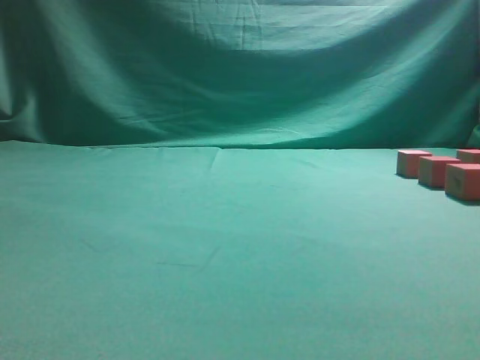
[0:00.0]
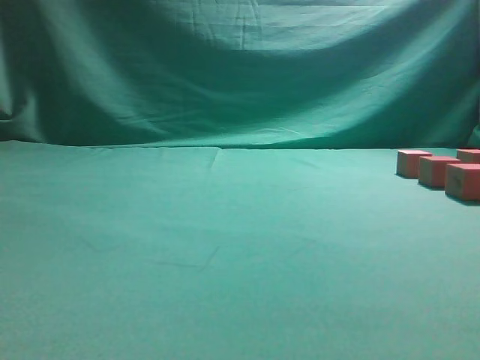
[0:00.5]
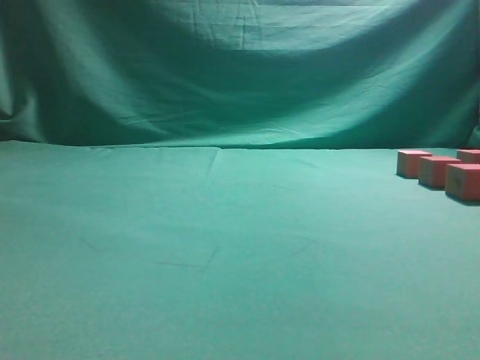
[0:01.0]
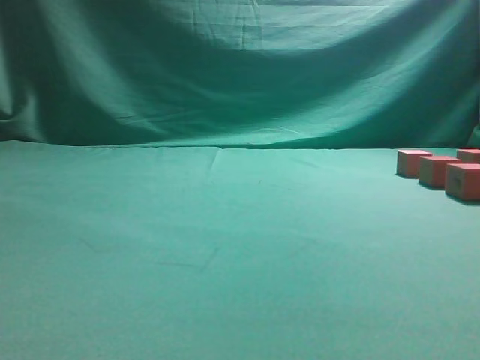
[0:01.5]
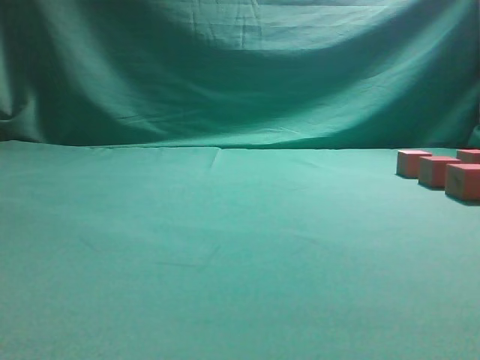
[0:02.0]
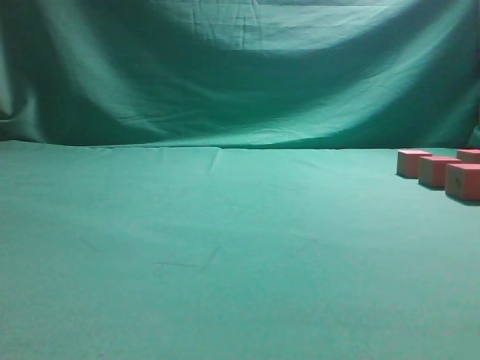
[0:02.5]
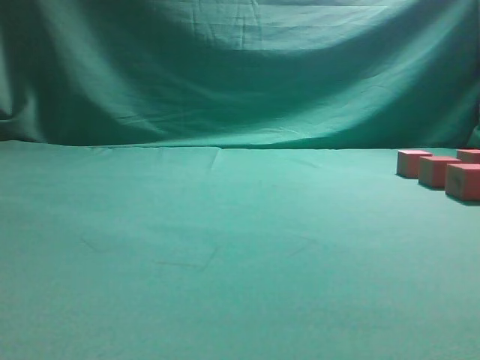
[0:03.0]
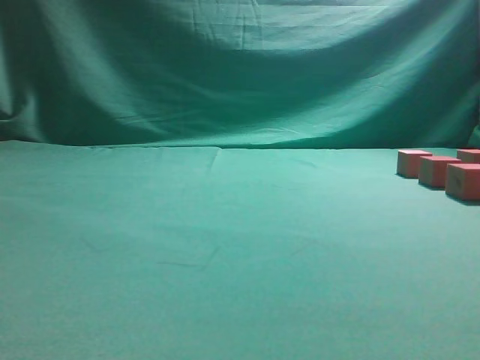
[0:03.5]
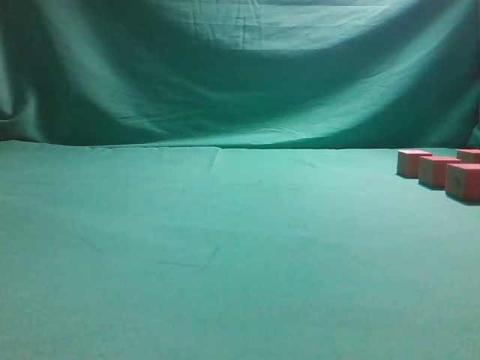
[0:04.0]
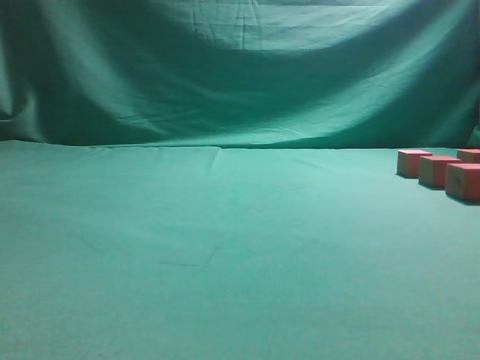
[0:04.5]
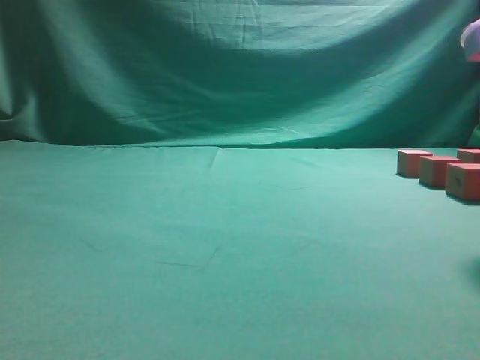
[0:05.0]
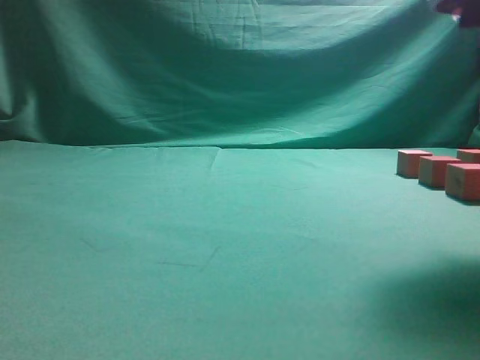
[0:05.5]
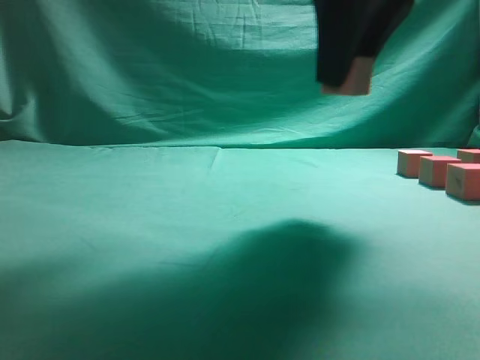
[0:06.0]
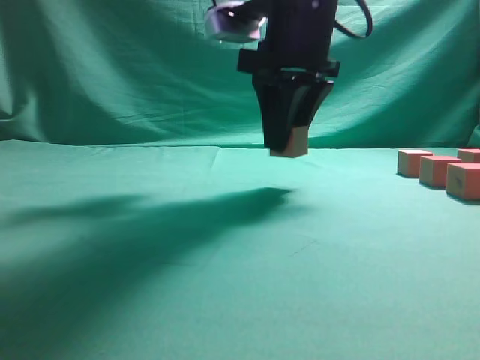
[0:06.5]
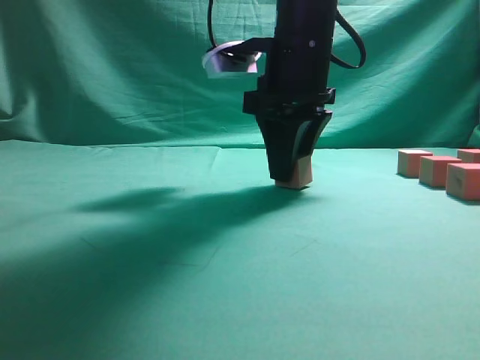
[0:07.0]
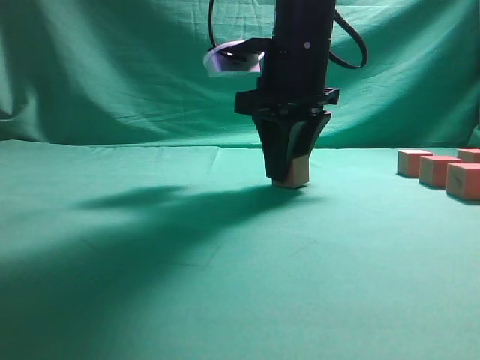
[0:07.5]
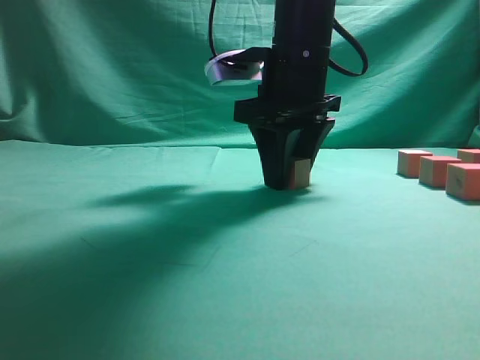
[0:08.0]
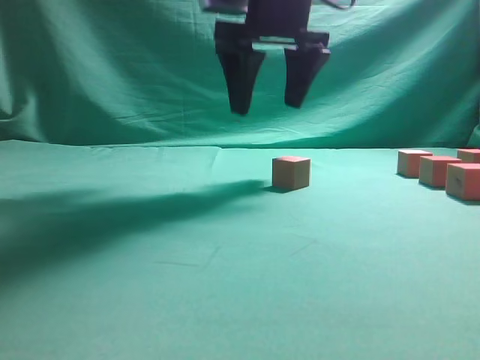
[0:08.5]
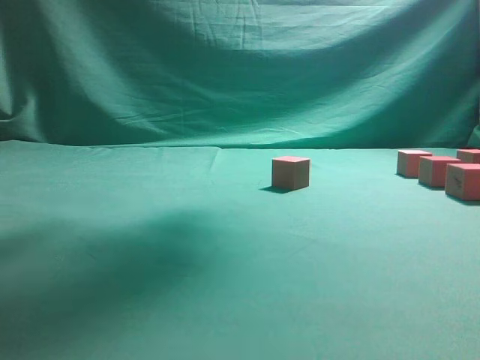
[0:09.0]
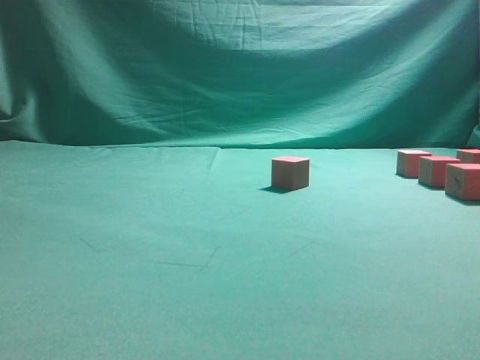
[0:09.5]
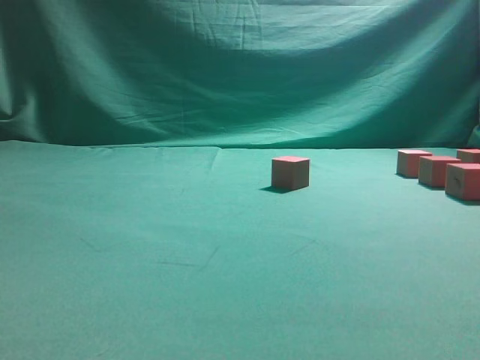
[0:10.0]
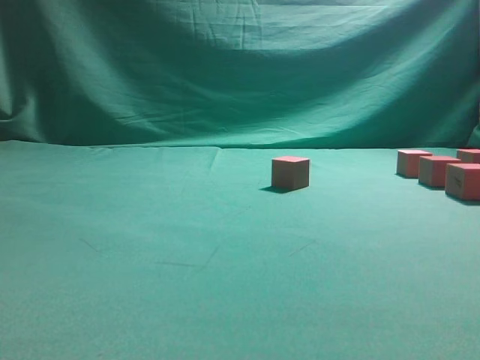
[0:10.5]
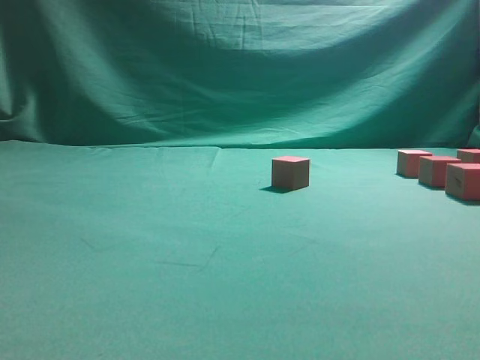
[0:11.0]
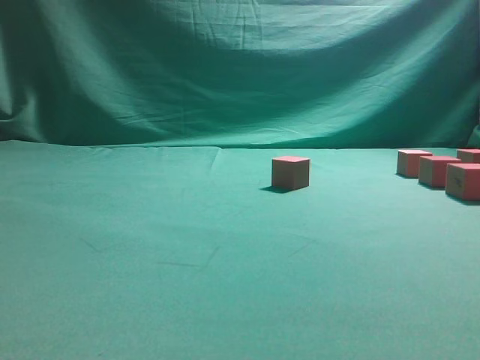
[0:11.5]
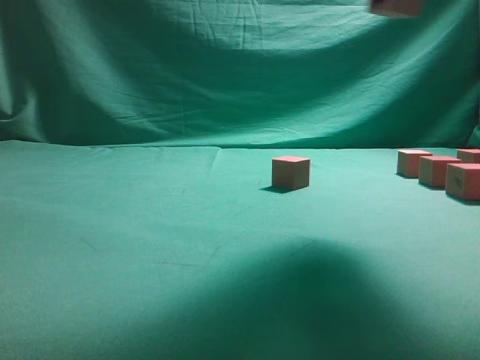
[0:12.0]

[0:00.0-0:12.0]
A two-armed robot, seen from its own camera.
Task of the whole recording: pick up the multiple cubes in two columns one by one and place them in another position on the table.
Step, 0:06.0 to 0:08.5: Place the block at the correct position to assemble the letter S.
Step, 0:09.0 to 0:11.5: Pick up the block on the table.
0:04.0 to 0:06.0: The right gripper shifts about 15 cm to the left and forward, and opens and closes again.
0:06.0 to 0:08.0: The right gripper travels downward and forward by roughly 15 cm.
0:08.0 to 0:10.0: The right gripper travels to the right and backward by approximately 30 cm.
0:10.0 to 0:12.0: The right gripper shifts roughly 20 cm to the left, upward and forward, and closes.

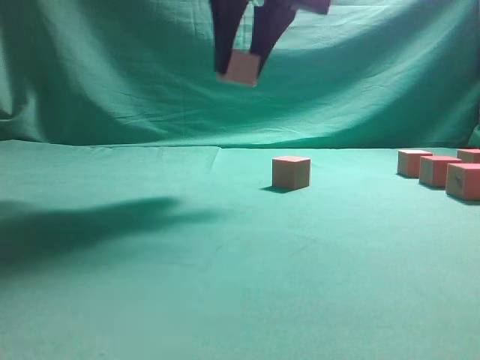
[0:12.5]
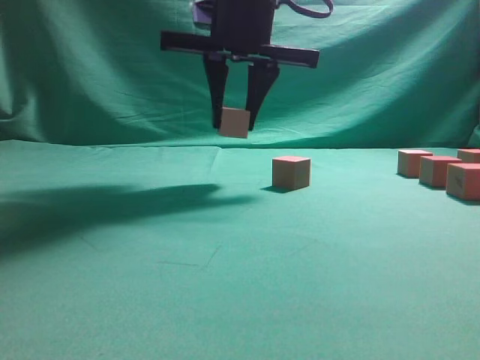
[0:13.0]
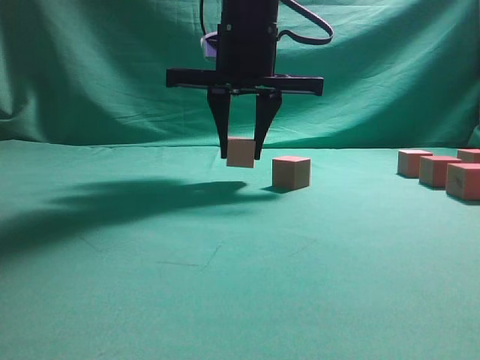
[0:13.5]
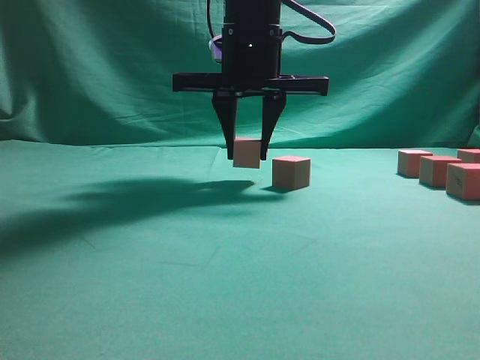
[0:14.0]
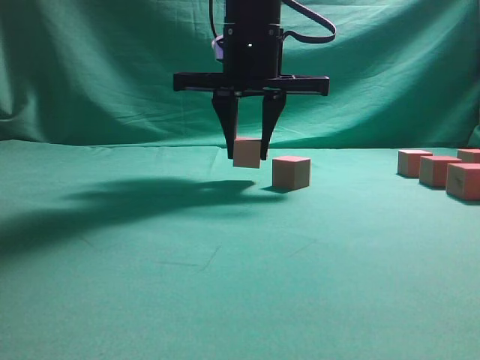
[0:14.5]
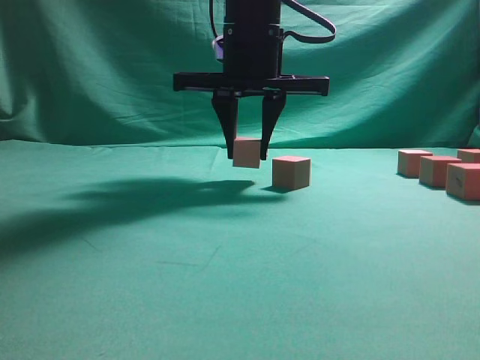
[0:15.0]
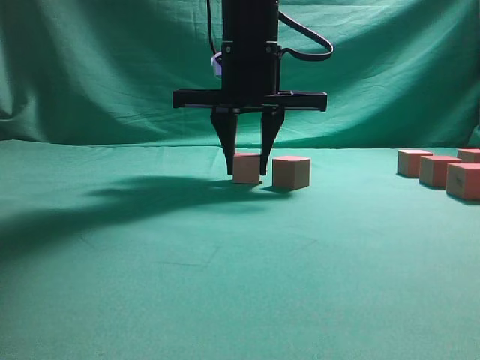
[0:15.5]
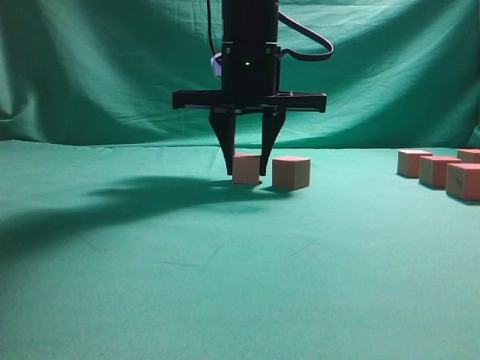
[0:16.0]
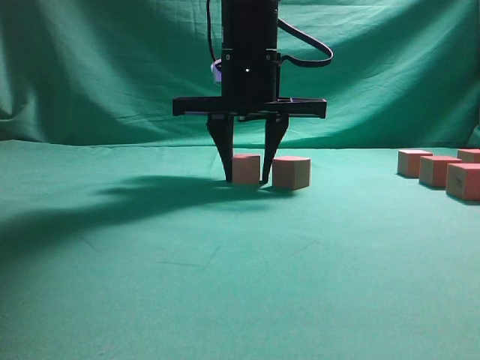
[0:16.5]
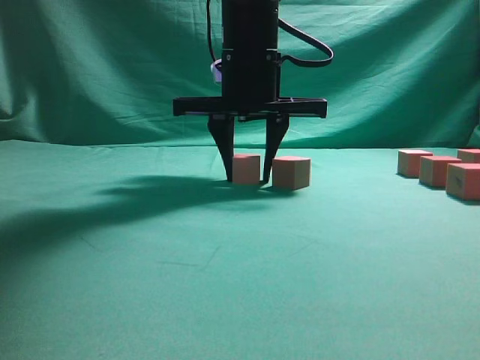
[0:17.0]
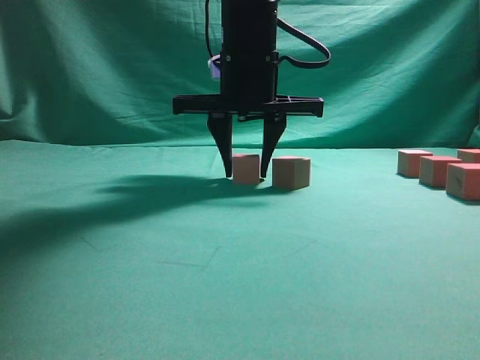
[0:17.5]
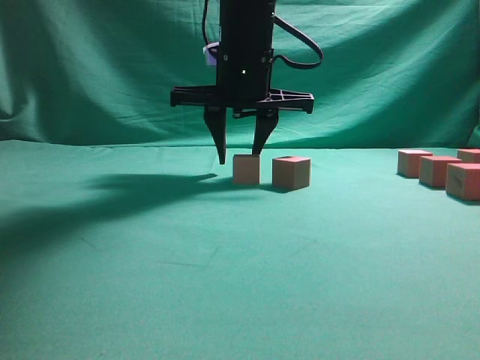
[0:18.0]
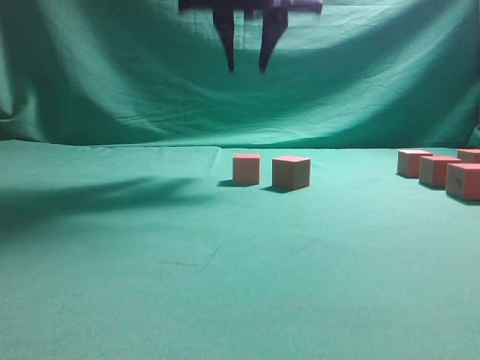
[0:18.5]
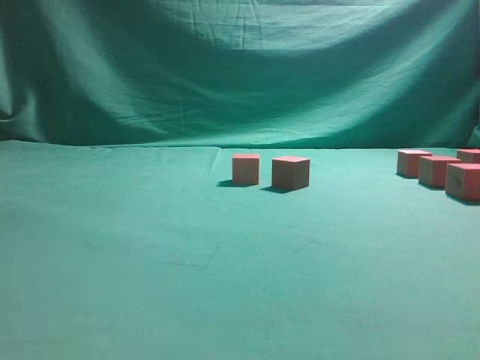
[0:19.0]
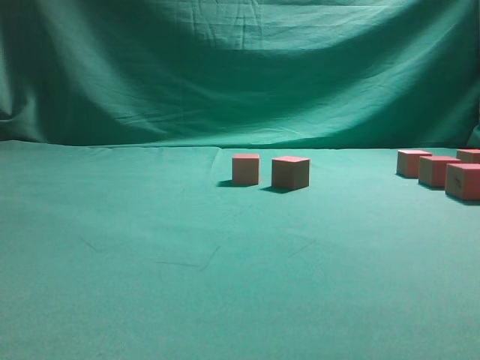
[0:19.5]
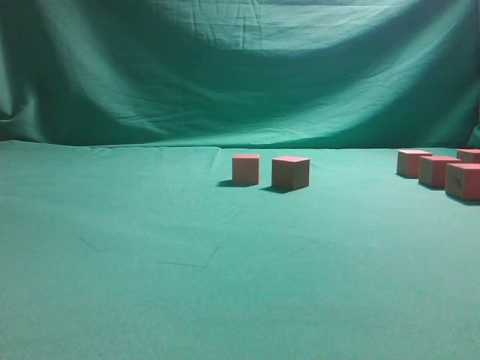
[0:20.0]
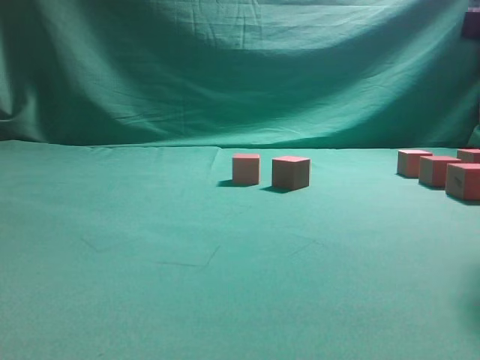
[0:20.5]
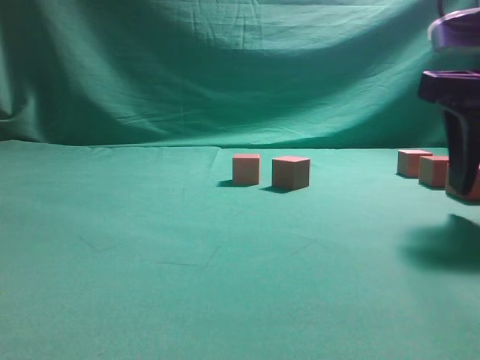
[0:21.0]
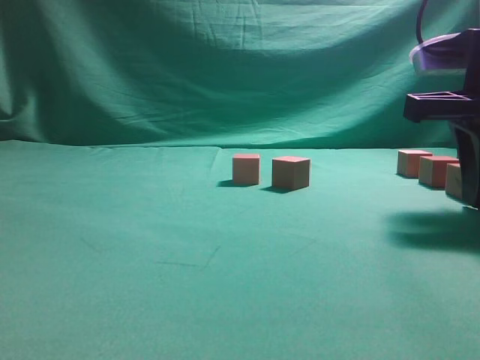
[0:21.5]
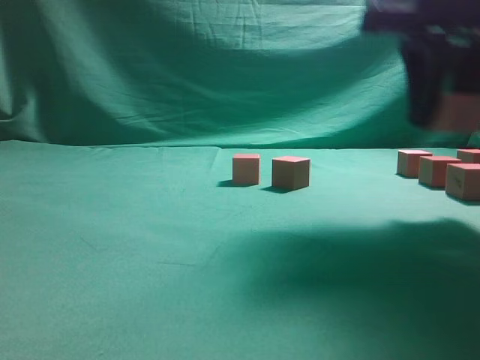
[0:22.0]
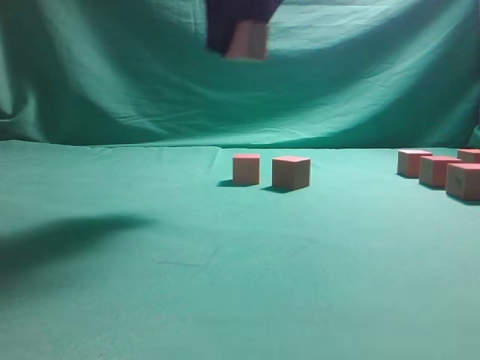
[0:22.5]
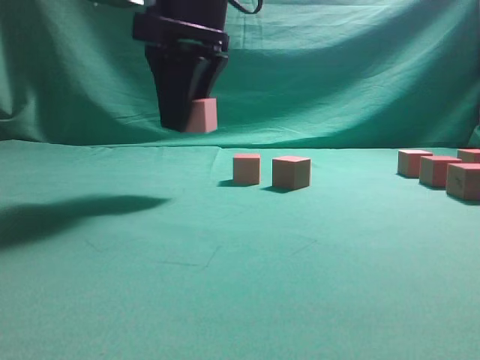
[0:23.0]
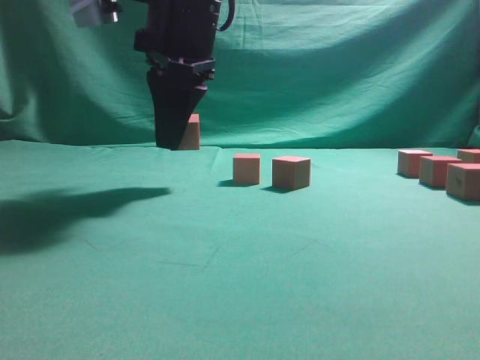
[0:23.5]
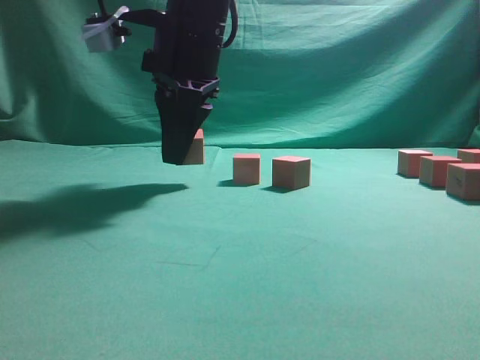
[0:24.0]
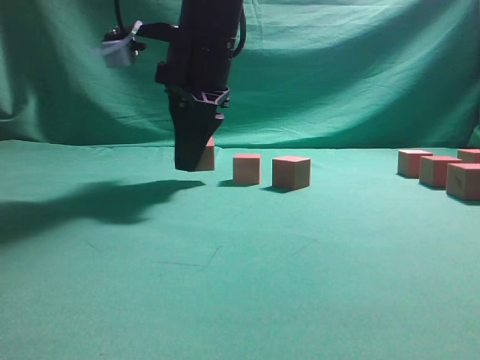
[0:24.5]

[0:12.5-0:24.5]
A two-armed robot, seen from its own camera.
Task of the whole recording: pick up the multiple cubes in two columns one by one and place them in another position on the table.
Step, 0:12.5 to 0:18.5: Place the block at the correct position to assemble the letter S.
Step, 0:19.0 to 0:21.5: Pick up the block on the table.
0:12.5 to 0:14.5: The right gripper travels downward by some 10 cm.
0:14.5 to 0:16.5: The grippers stay close to where they were, moving slightly.
0:16.5 to 0:18.5: The right gripper moves upward, about 10 cm.
0:18.5 to 0:20.5: The right gripper travels to the right, backward and downward by roughly 30 cm.
0:20.5 to 0:22.5: The right gripper heads to the left, forward and upward, covering approximately 25 cm, and closes.
0:22.5 to 0:24.5: The right gripper moves downward and forward, approximately 10 cm.

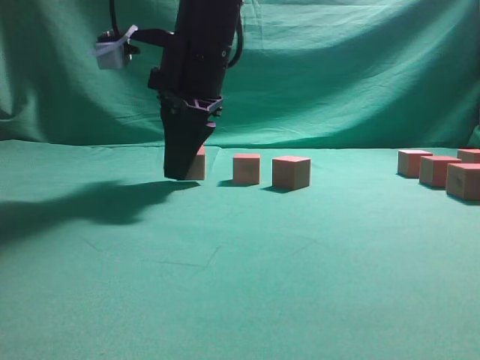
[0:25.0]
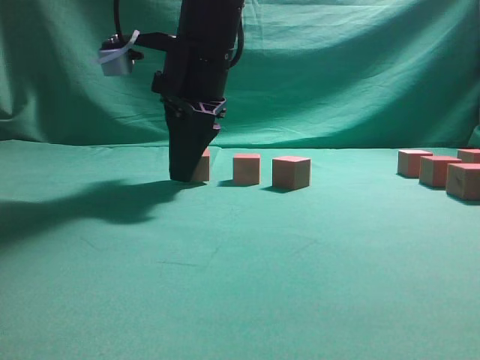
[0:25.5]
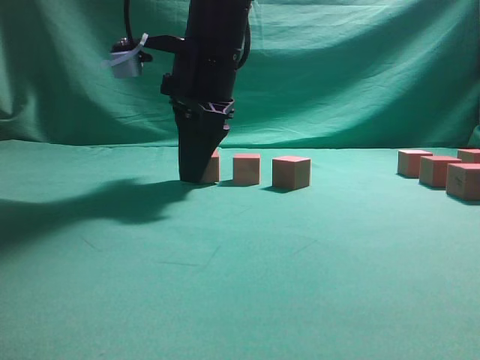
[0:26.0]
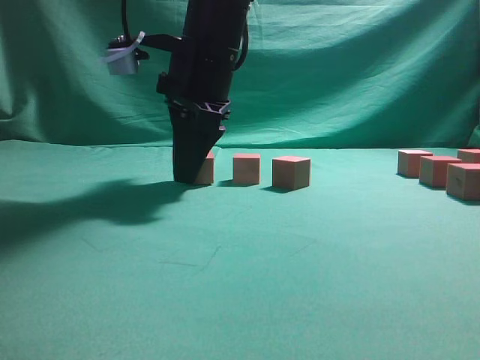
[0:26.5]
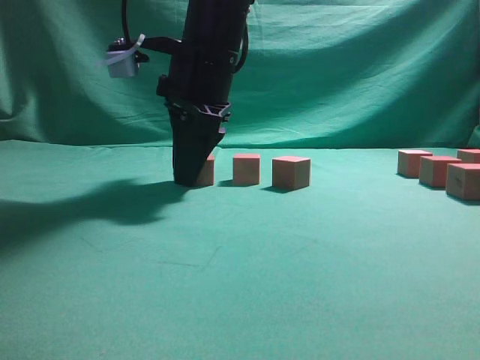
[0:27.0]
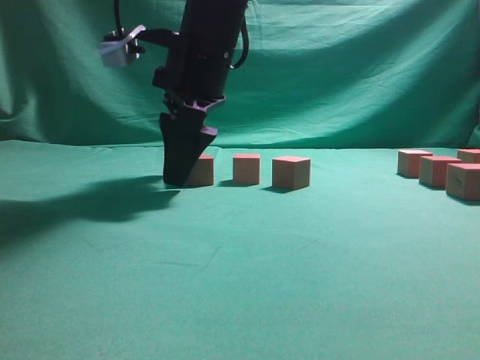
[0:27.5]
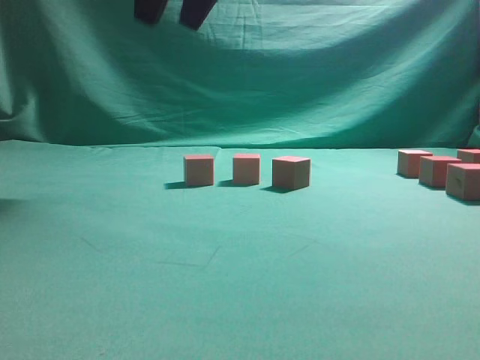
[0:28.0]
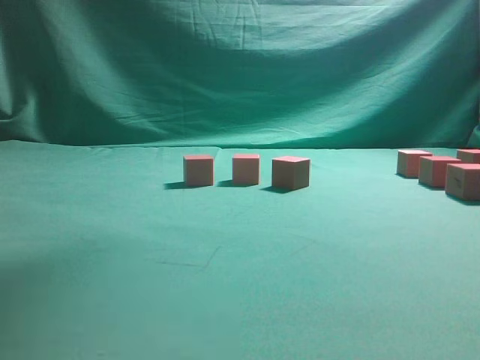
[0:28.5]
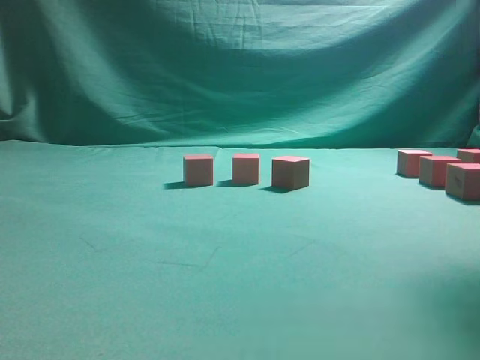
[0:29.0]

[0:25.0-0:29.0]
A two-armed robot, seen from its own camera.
Task of the whole recording: pick up the multiple cubes in two columns one by one and place them in another position on the table.
Step, 0:25.0 to 0:27.5: Place the block at the correct position to assemble the letter S.
0:25.0 to 0:27.0: Neither gripper changes place.
0:27.0 to 0:29.0: The right gripper moves to the right and upward, roughly 30 cm, and opens its fingers.
